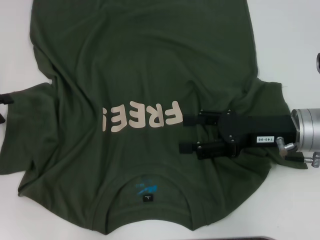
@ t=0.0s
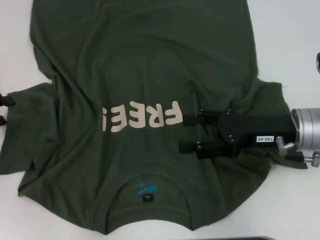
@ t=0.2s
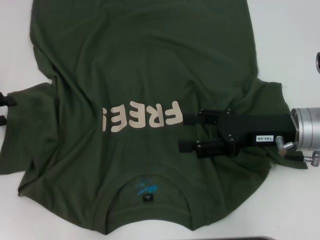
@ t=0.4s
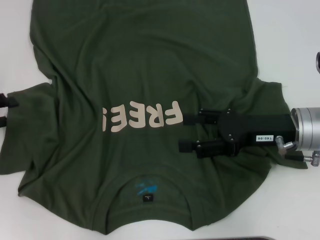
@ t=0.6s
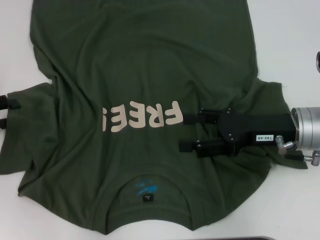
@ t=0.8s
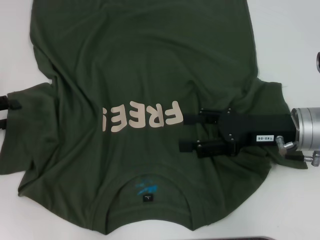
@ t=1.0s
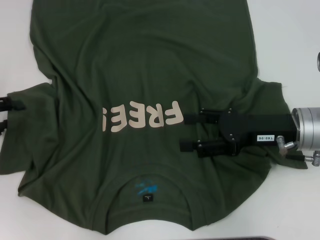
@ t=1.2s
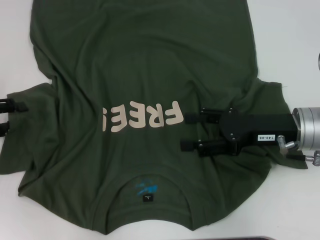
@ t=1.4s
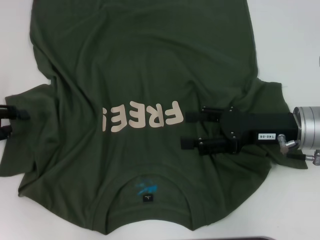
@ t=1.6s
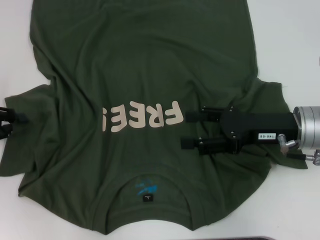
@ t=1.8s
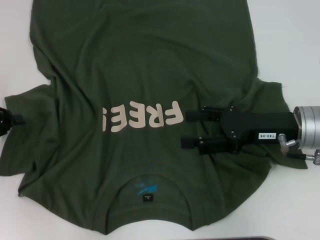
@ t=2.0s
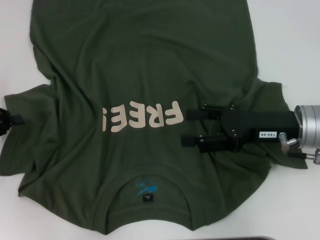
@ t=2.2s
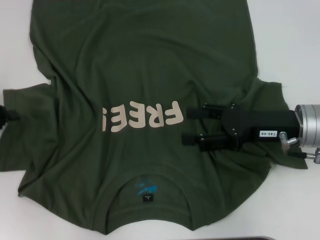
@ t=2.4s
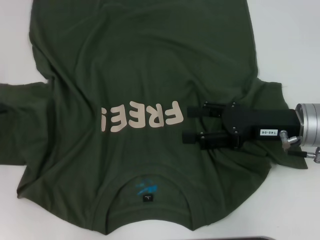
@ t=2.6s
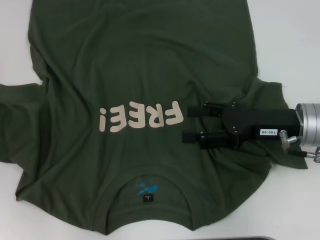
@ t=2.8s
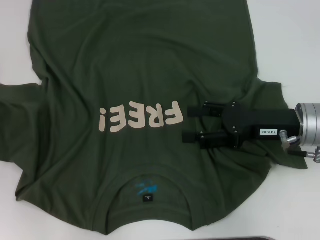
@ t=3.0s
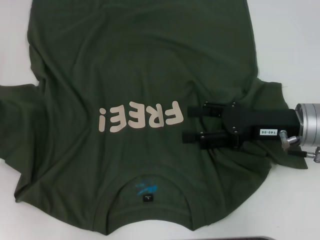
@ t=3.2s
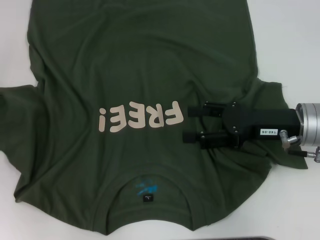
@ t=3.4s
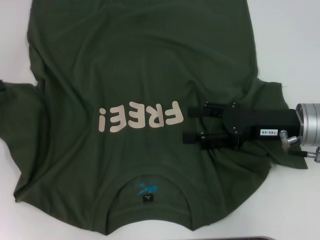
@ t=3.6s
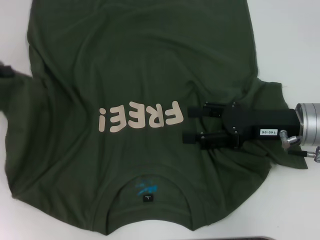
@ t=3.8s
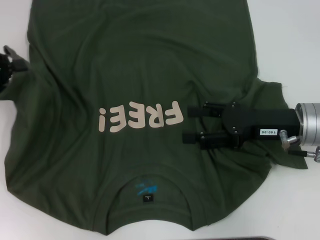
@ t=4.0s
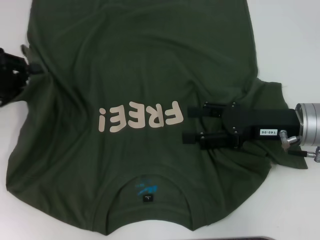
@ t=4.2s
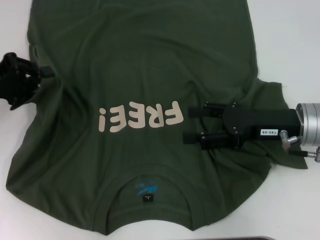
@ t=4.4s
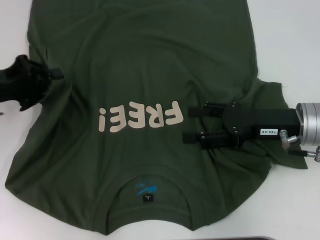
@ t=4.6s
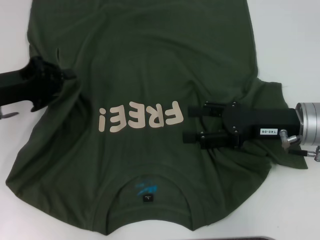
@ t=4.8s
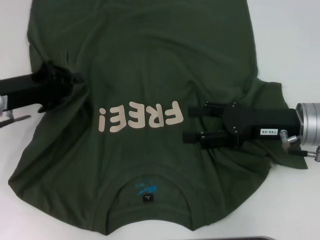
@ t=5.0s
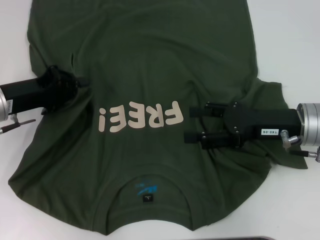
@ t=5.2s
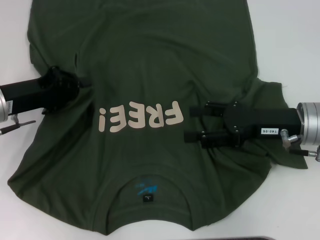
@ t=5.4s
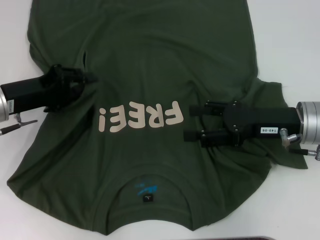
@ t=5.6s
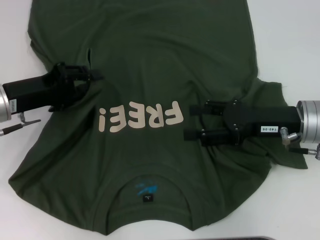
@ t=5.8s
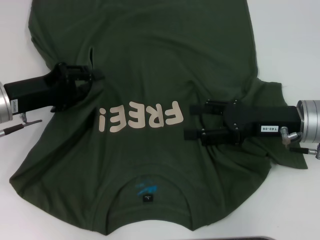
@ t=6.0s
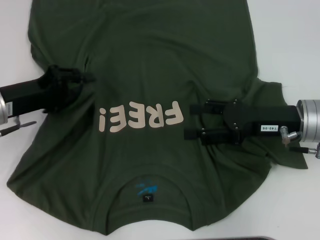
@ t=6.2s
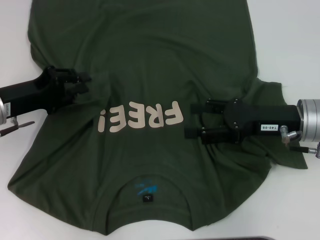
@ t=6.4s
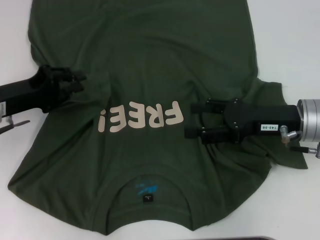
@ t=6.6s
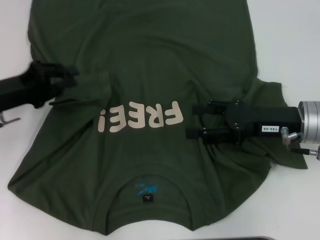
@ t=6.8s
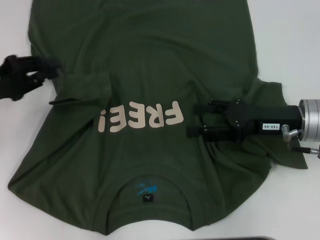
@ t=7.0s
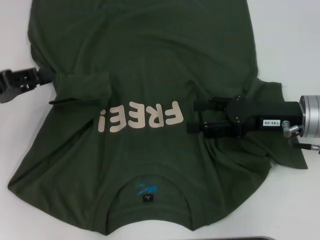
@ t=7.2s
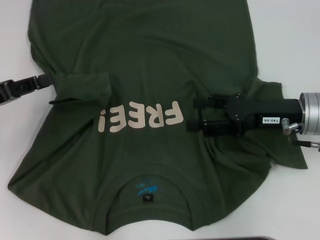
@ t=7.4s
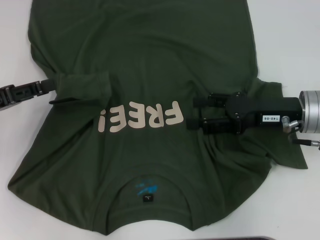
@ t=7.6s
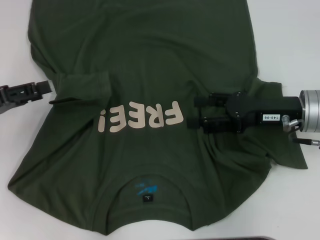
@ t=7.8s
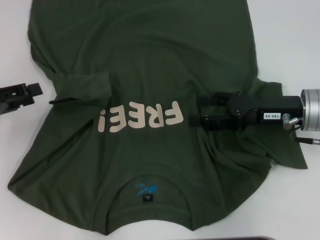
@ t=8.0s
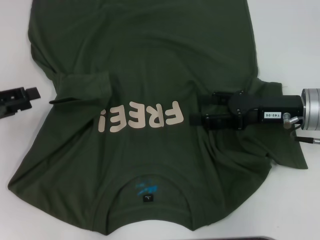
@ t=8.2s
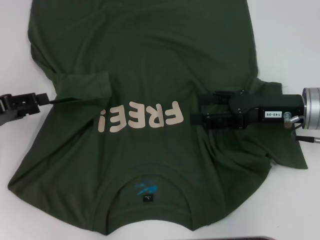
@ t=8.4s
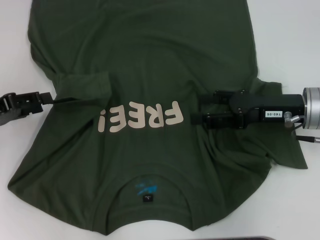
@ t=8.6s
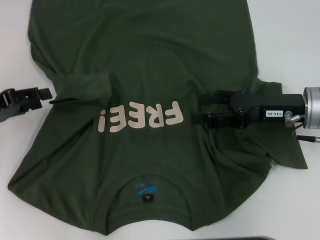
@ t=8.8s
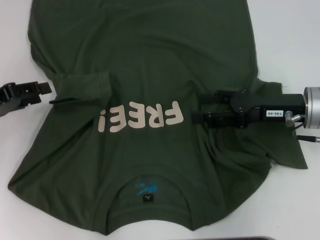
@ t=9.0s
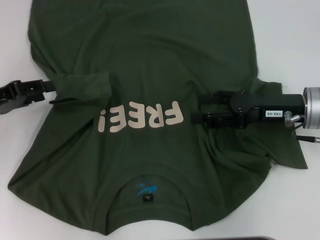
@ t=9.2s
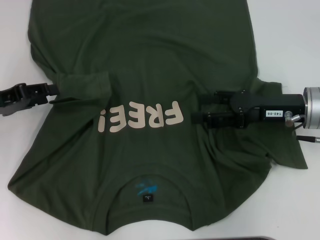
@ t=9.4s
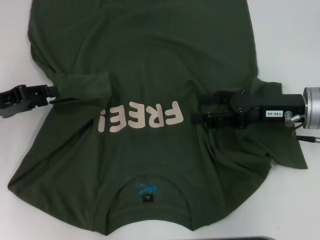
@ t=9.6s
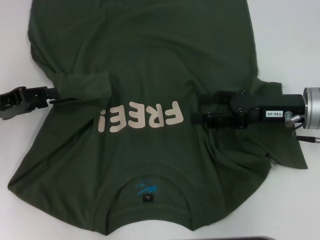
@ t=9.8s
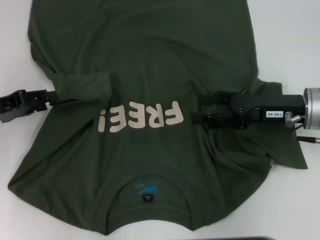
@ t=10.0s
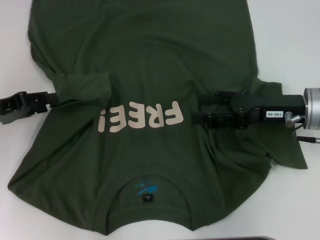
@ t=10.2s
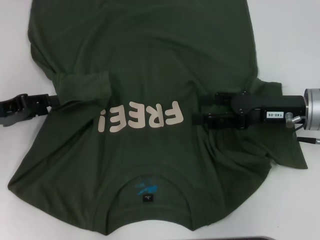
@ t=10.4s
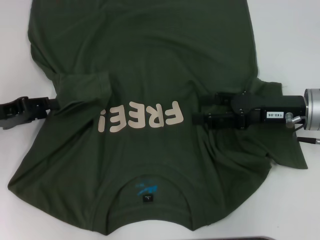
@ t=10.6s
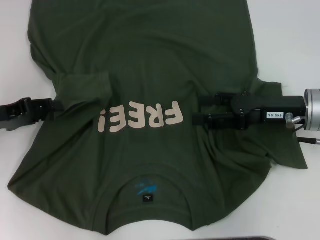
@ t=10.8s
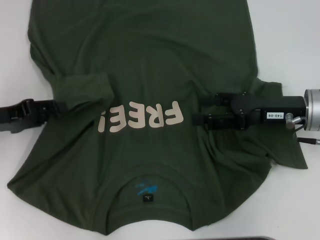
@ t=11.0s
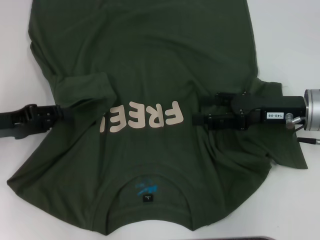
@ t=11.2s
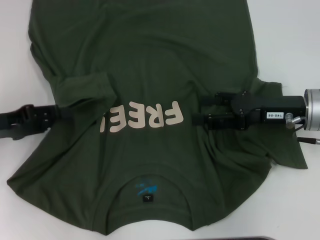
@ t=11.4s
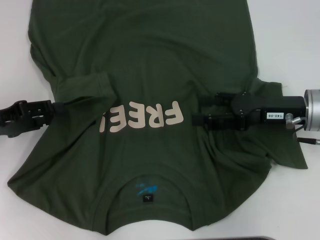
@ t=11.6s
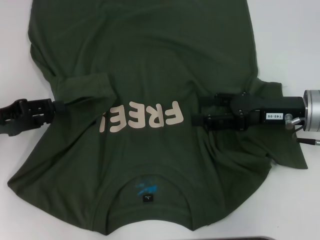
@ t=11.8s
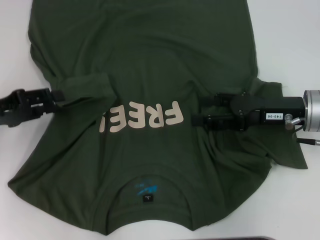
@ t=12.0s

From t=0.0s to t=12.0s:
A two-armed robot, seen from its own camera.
From t=0.0s to t=1.6s: There are only small adjustments of the grippers.
From t=1.6s to t=3.0s: The left gripper closes up.
From t=3.0s to t=4.4s: The left gripper travels to the right by approximately 5 cm.
From t=4.4s to t=6.0s: The left gripper heads to the right, covering approximately 5 cm.
From t=6.0s to t=7.6s: The left gripper travels to the left by about 5 cm.
From t=7.6s to t=10.4s: There are only small adjustments of the grippers.
From t=10.4s to t=12.0s: There are only small adjustments of the grippers.

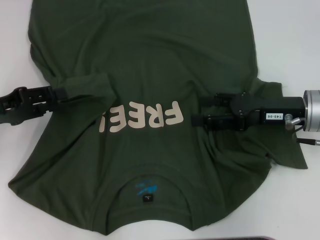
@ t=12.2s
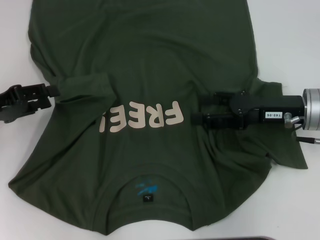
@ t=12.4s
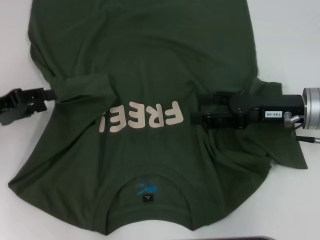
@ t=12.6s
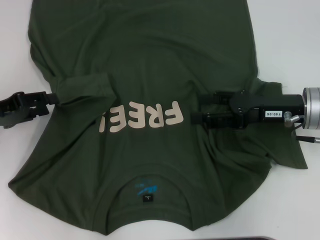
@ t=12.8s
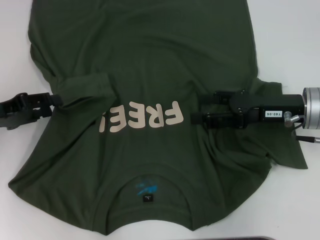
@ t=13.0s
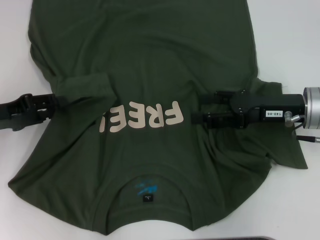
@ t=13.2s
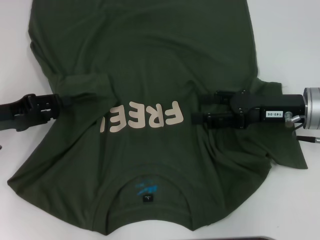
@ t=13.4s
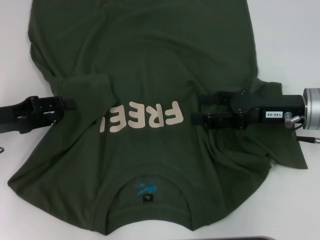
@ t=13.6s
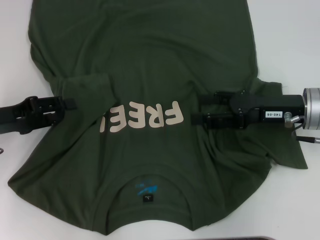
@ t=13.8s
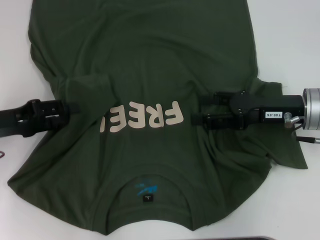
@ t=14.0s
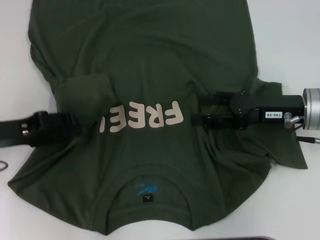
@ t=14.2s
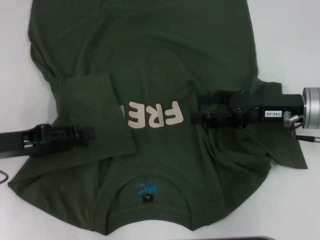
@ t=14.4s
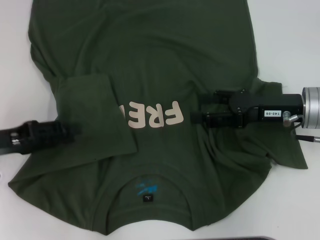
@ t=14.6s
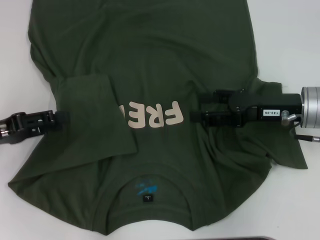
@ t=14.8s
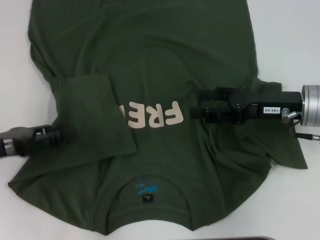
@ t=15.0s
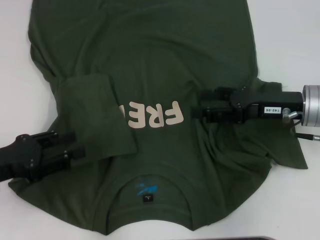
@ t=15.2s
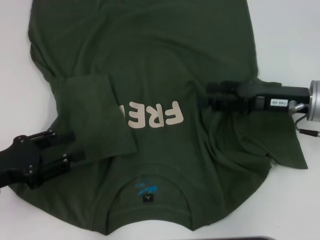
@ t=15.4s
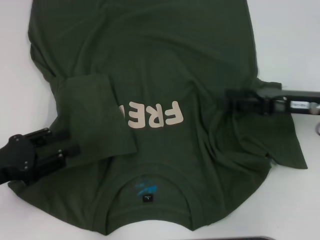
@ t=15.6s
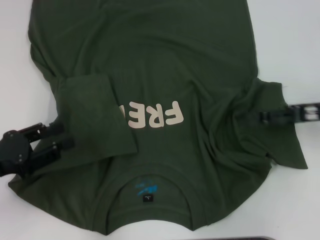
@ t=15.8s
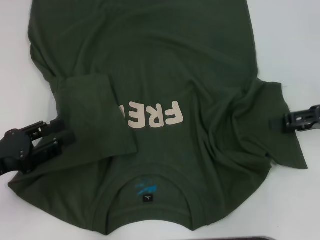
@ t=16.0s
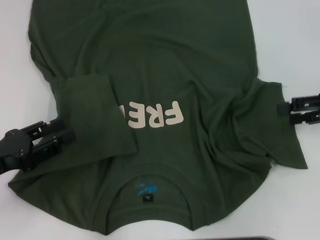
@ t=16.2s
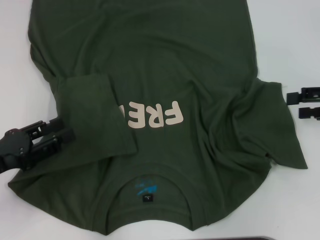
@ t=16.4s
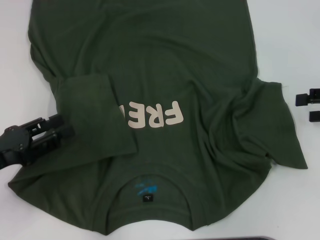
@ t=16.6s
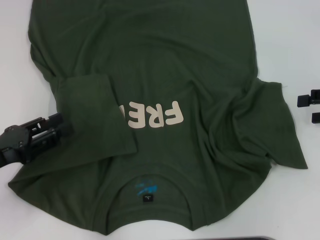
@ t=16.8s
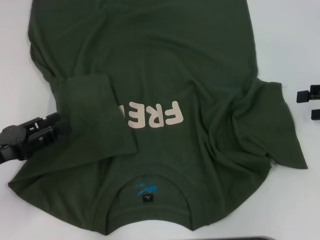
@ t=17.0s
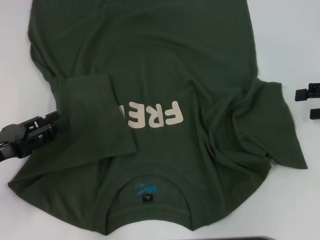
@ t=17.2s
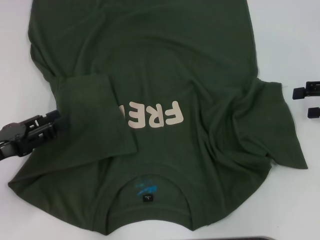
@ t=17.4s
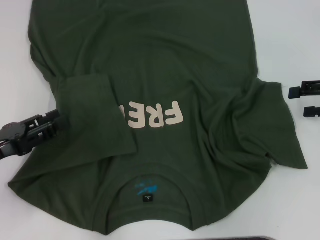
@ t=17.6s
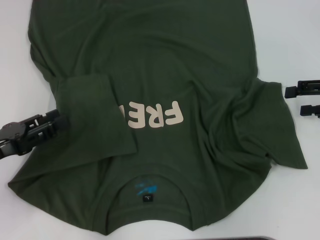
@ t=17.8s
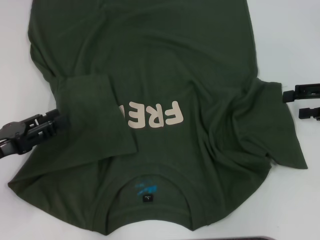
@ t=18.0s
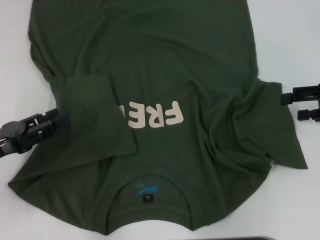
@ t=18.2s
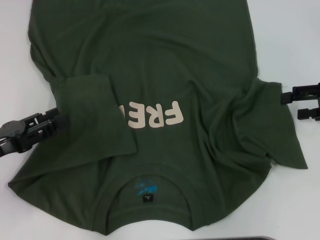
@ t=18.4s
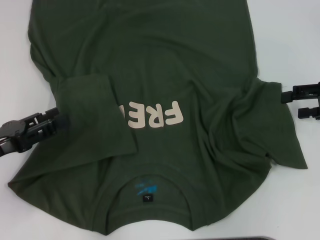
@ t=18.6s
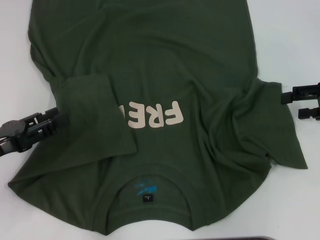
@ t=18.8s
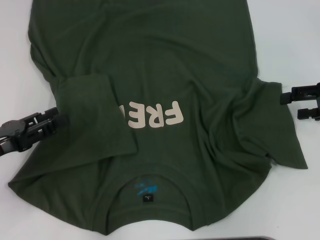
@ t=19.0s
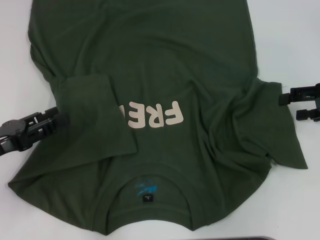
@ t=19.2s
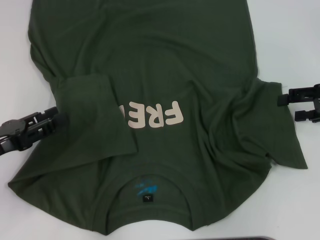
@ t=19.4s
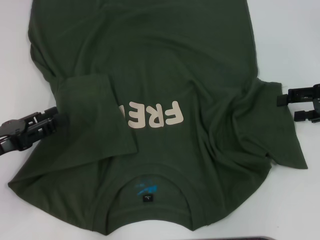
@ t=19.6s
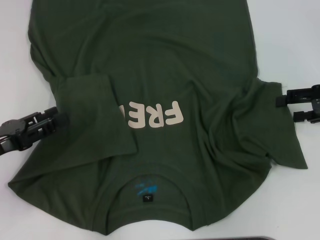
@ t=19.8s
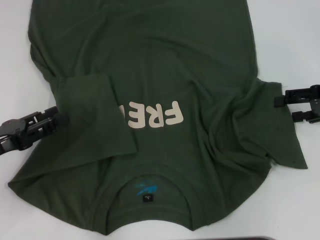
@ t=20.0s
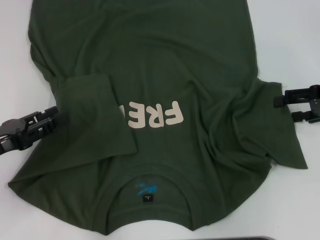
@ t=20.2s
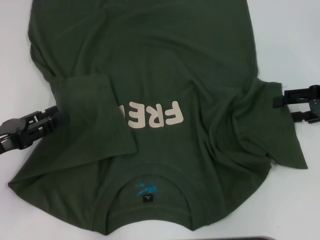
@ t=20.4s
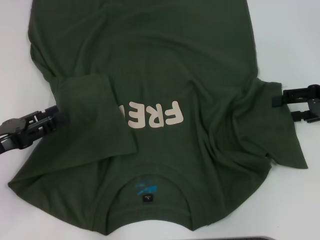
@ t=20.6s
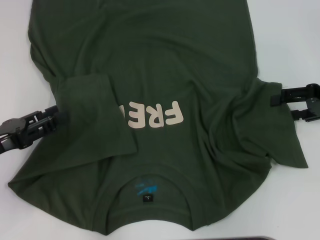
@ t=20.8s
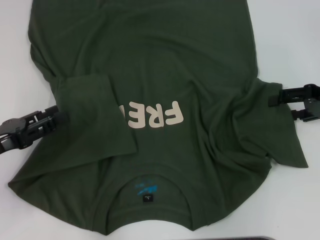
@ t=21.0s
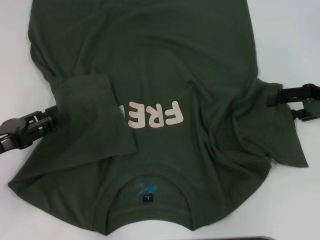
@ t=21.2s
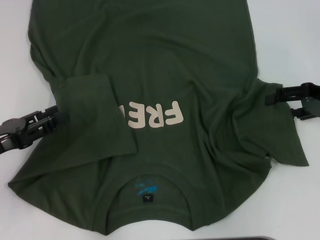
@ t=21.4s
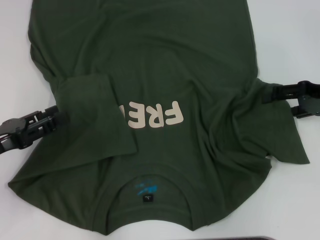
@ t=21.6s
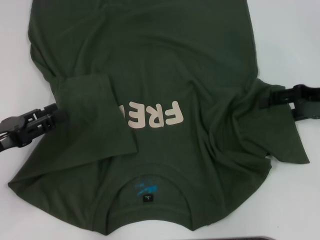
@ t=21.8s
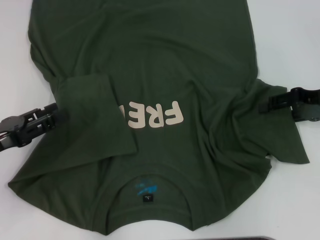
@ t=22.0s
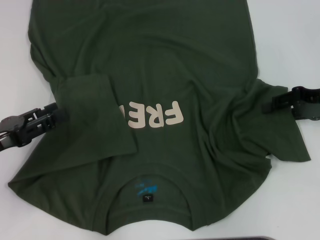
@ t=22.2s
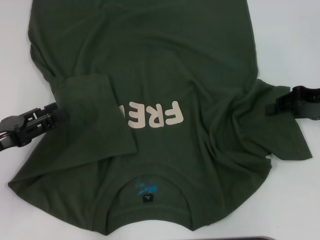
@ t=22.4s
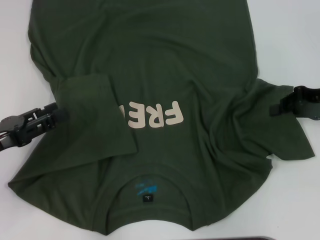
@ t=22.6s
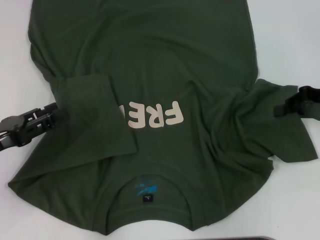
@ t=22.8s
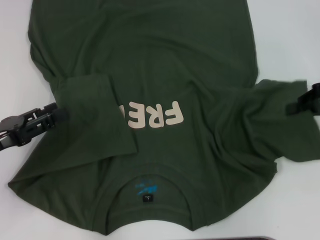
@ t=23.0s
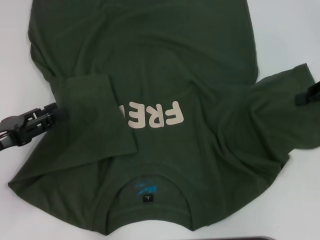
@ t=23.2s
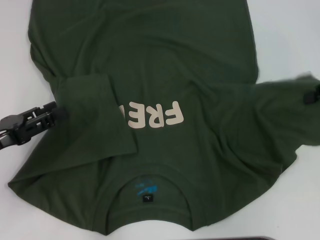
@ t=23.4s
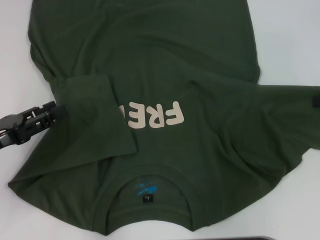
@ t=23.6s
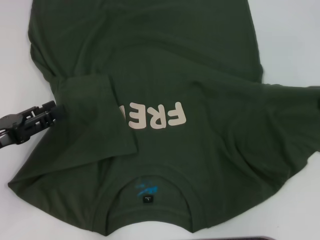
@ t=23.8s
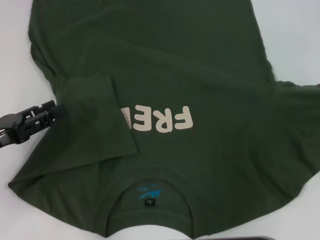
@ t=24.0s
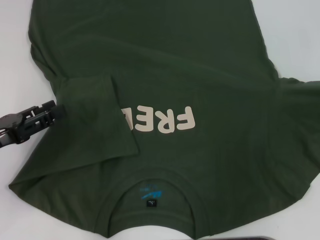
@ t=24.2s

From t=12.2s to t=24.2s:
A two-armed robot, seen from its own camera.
Step, from t=12.2s to t=14.4s: Fold the bottom left sleeve with your left hand.
From t=12.2s to t=13.8s: The grippers make only small movements.
From t=13.8s to t=15.2s: The left gripper is displaced backward by approximately 5 cm.
From t=15.2s to t=16.6s: The right gripper moves to the right, approximately 15 cm.
From t=16.6s to t=18.2s: There are only small adjustments of the grippers.
From t=18.2s to t=19.8s: Both grippers stay about where they are.
From t=19.8s to t=21.2s: The two grippers keep their place.
From t=21.2s to t=22.6s: The right gripper closes.
From t=22.6s to t=24.2s: The right gripper is displaced to the right by roughly 10 cm.
